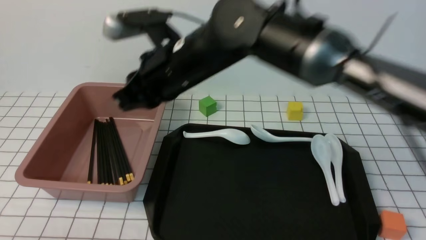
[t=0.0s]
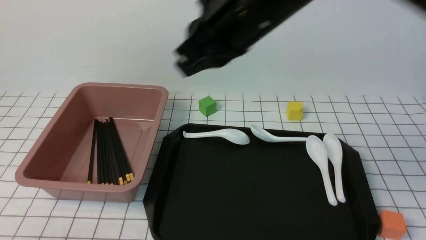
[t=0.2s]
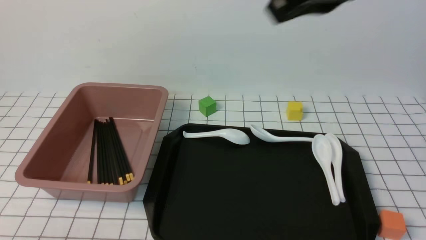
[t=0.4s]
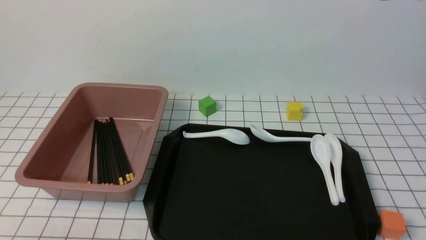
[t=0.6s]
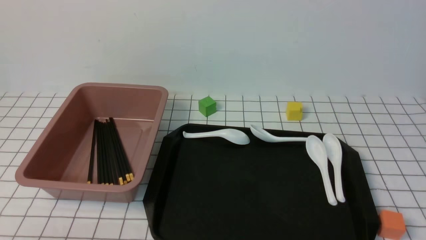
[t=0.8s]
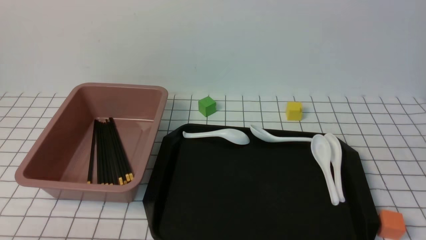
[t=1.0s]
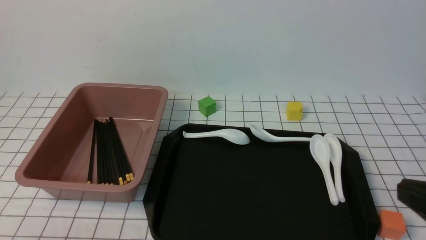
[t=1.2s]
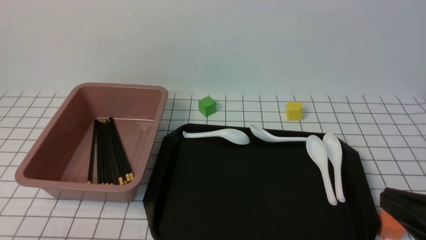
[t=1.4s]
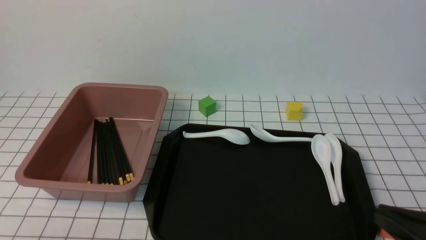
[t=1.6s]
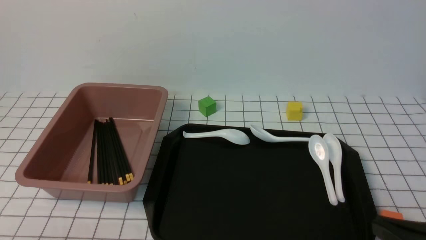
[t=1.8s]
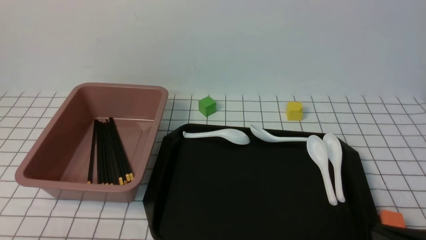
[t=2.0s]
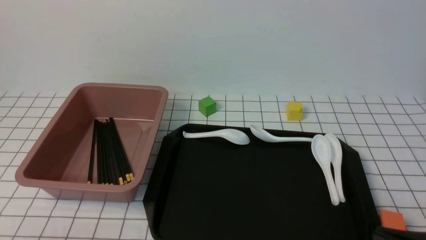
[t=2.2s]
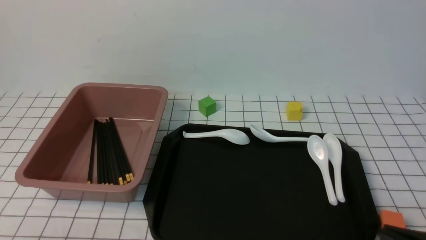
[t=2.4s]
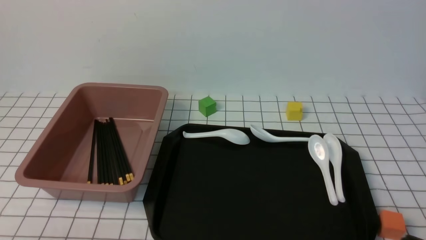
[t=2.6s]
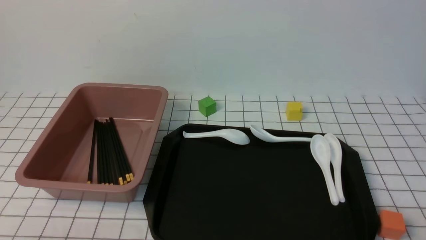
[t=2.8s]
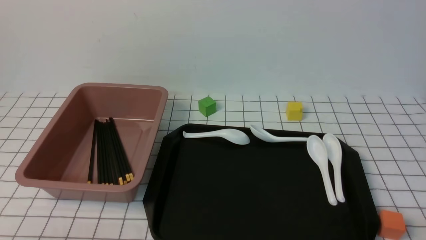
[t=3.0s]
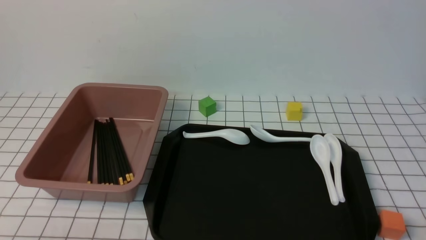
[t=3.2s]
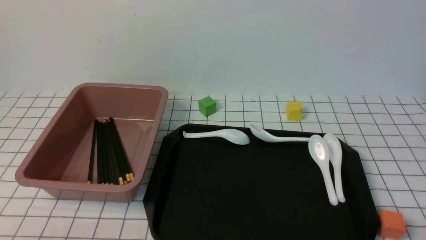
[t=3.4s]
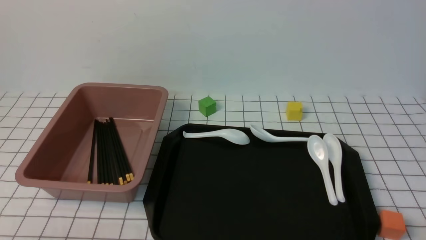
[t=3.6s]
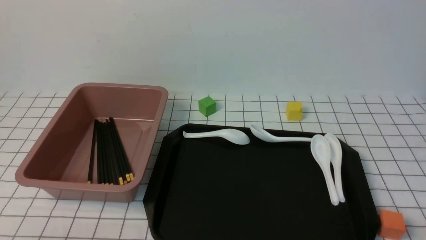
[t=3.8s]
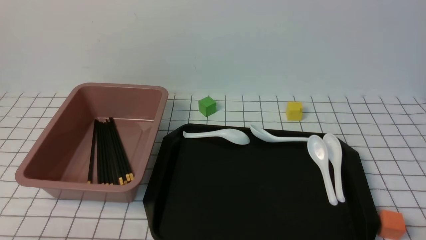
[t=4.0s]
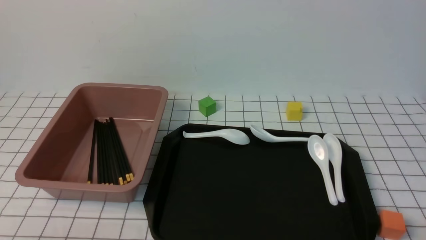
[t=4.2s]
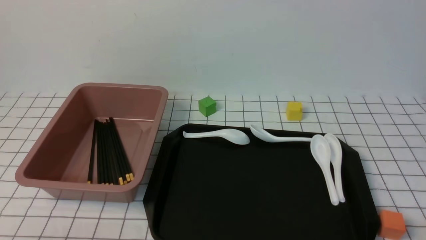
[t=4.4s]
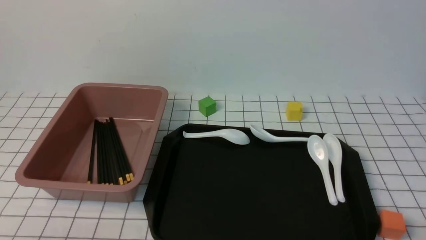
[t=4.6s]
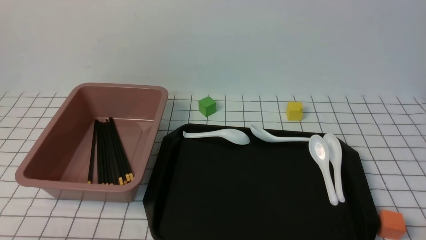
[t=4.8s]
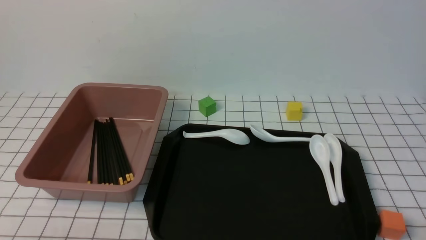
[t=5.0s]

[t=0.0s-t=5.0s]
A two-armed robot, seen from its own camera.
t=0.0s to t=1.6s: The right gripper is displaced to the right and backward by about 35 cm.
t=1.6s to t=3.4s: The right gripper goes roughly 10 cm downward and to the right.
t=3.4s to t=5.0s: Both grippers stay about where they are.
